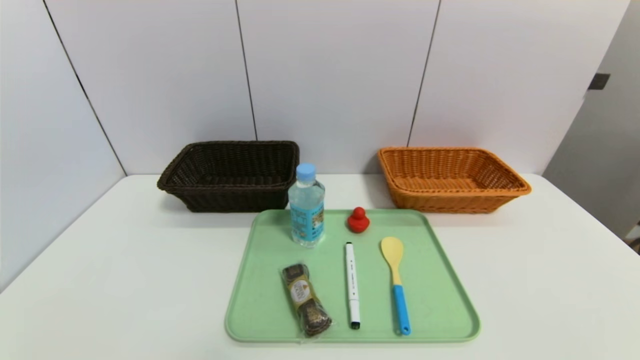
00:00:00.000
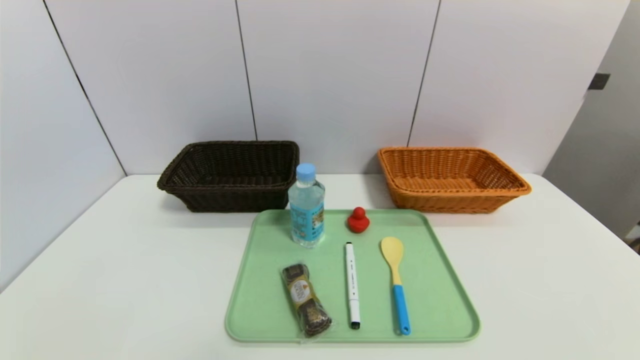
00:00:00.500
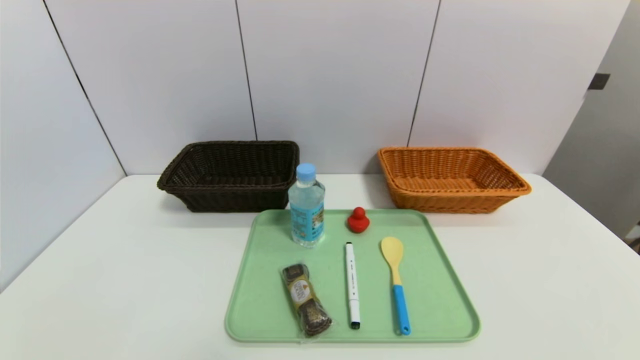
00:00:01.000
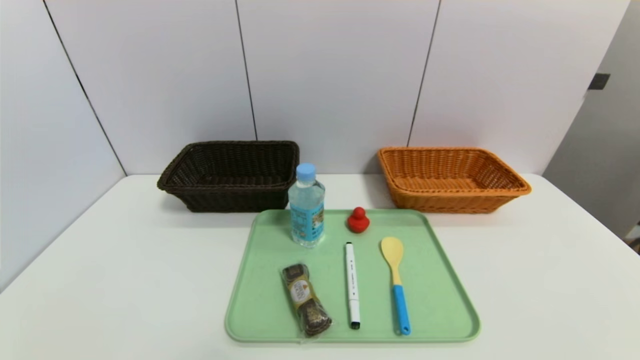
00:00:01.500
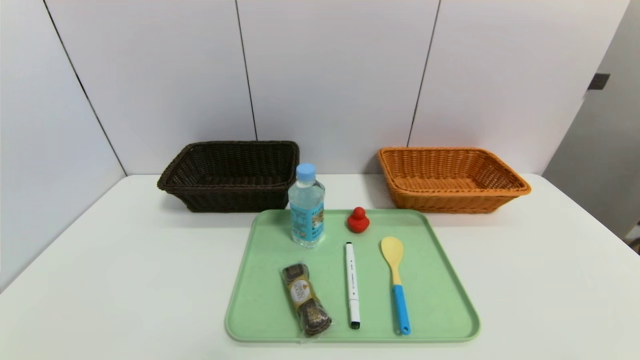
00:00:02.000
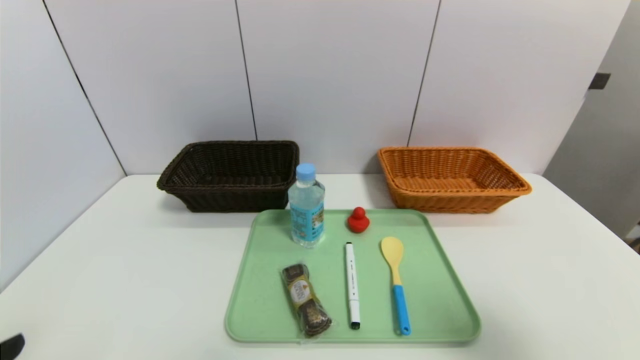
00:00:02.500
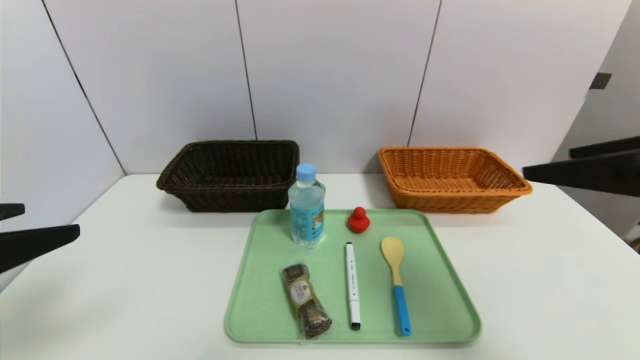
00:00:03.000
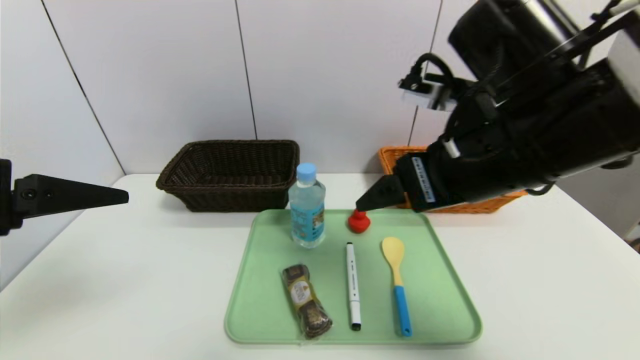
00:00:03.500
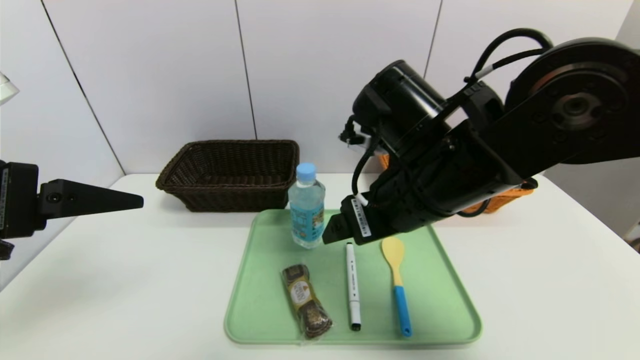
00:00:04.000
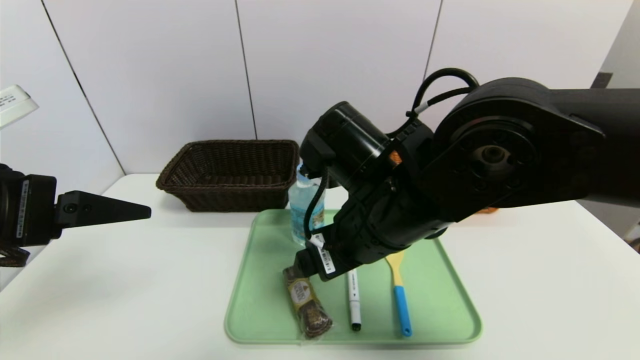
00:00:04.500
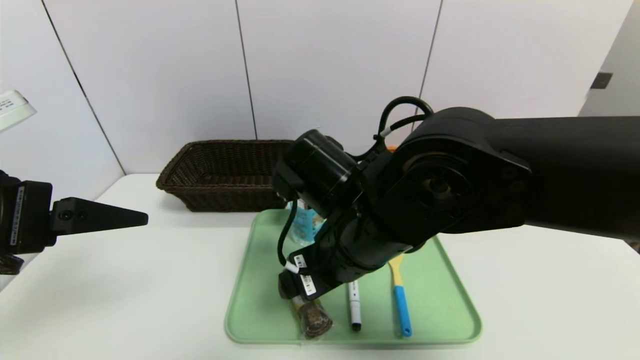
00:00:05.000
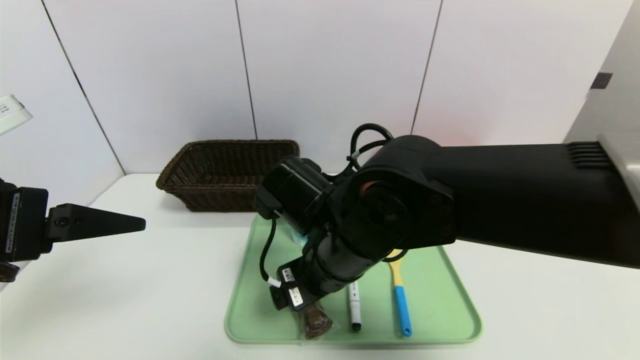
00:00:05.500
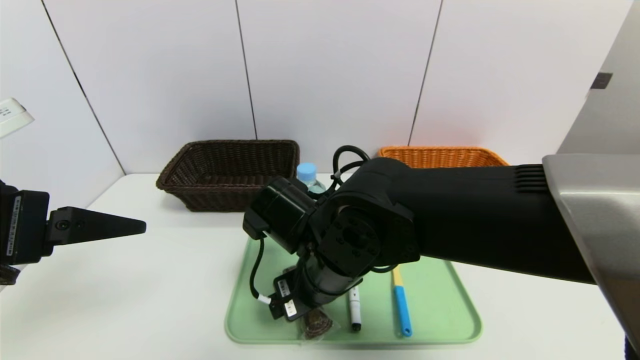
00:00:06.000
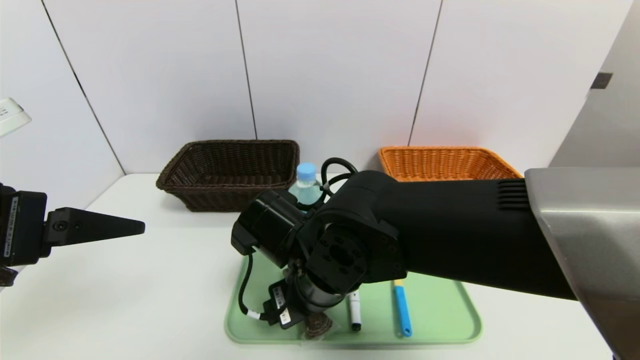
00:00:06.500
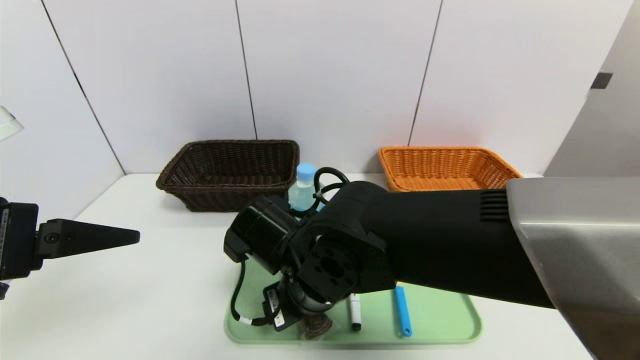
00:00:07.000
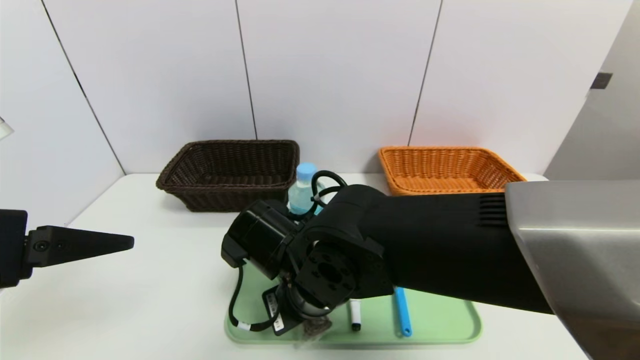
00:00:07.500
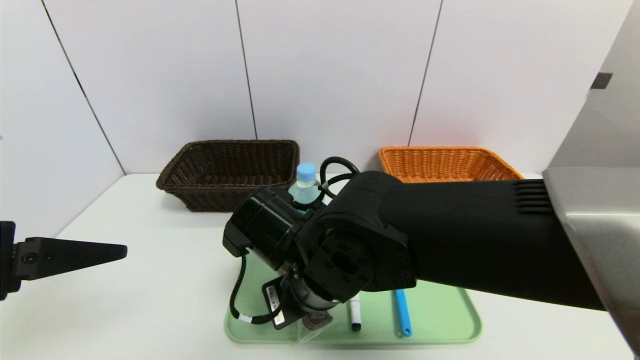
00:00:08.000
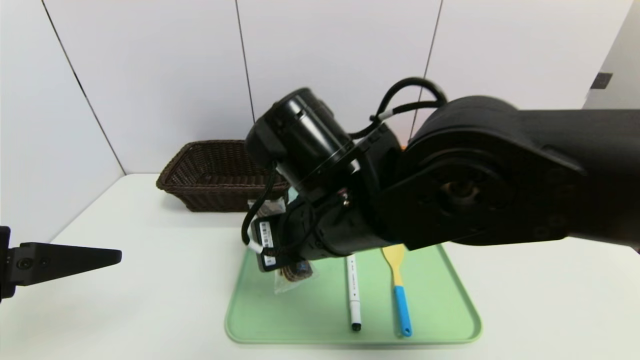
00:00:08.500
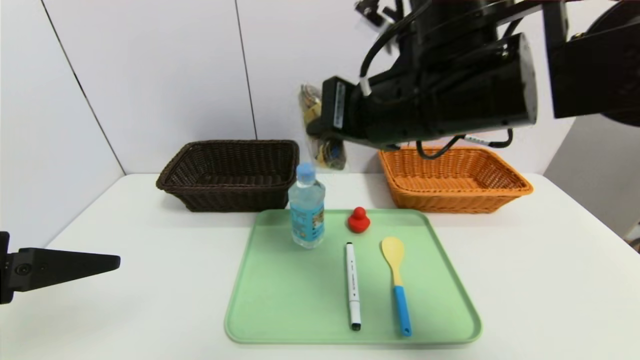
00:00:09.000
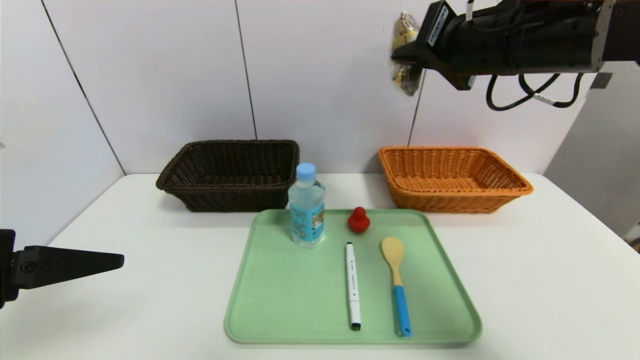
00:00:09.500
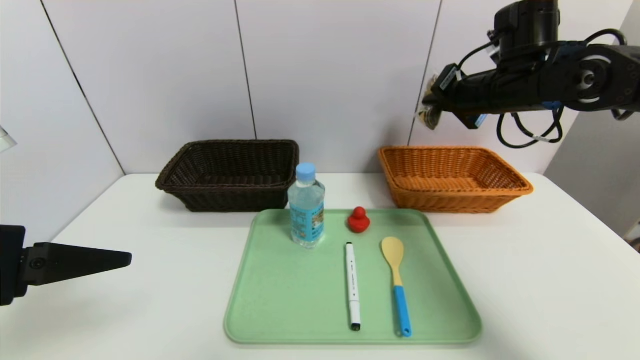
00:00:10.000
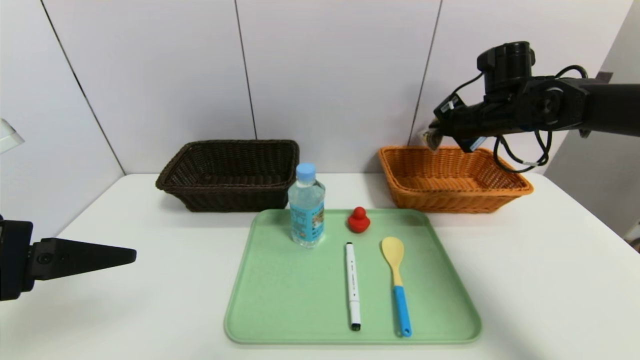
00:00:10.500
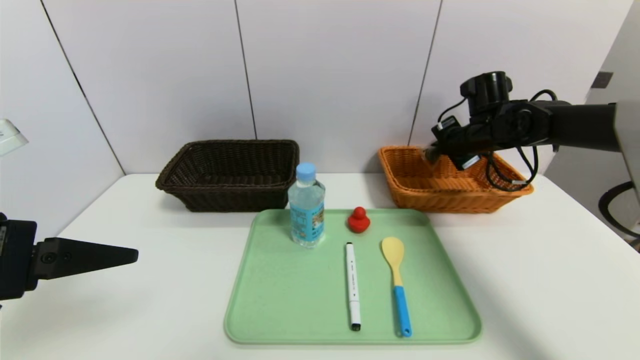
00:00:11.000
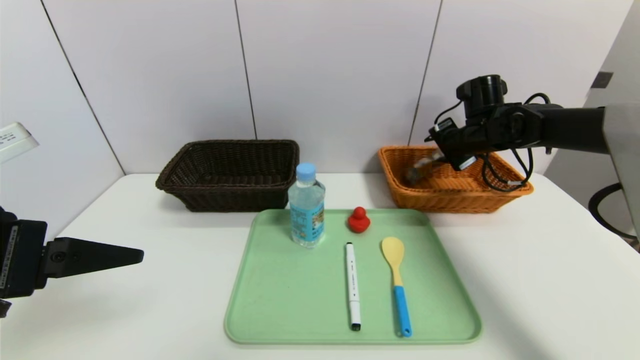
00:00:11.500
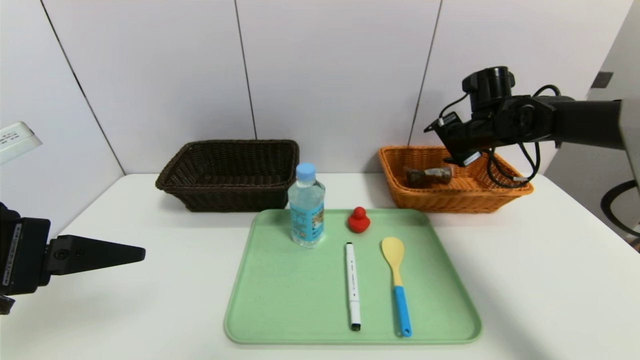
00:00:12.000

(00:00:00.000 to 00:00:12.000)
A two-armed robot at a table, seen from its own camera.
Task of the whole recording: place the food in the right basket with the right gripper, and place the non food items in the left basket with the left gripper.
00:00:02.000 - 00:00:04.000: The right gripper is displaced forward and to the left by some 35 cm. The left gripper heads forward and upward, covering approximately 25 cm.
00:00:04.000 - 00:00:06.000: The right gripper shifts roughly 15 cm to the left and downward.
00:00:06.000 - 00:00:08.000: The right gripper closes its fingers.
00:00:08.000 - 00:00:10.000: The right gripper travels to the right, forward and upward by roughly 35 cm.
00:00:10.000 - 00:00:12.000: The right gripper goes some 10 cm downward and forward, and opens its fingers.

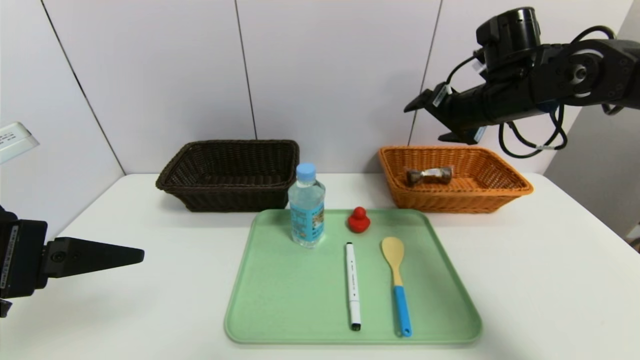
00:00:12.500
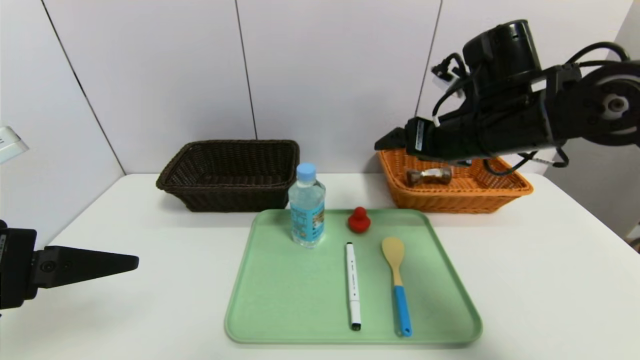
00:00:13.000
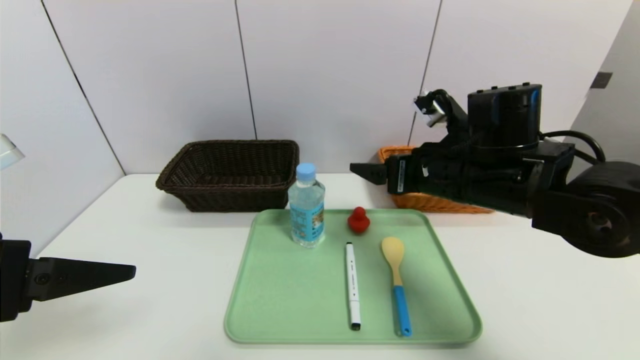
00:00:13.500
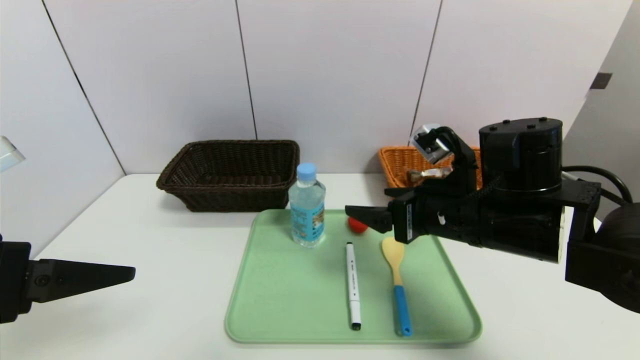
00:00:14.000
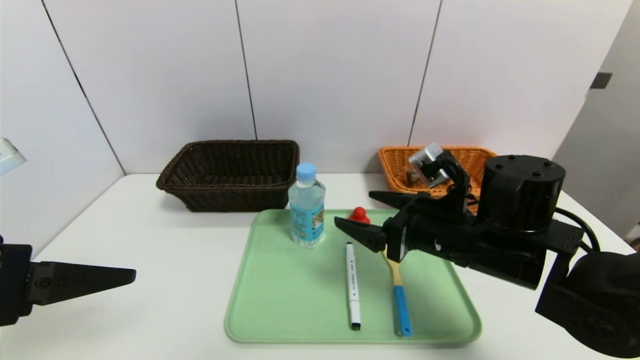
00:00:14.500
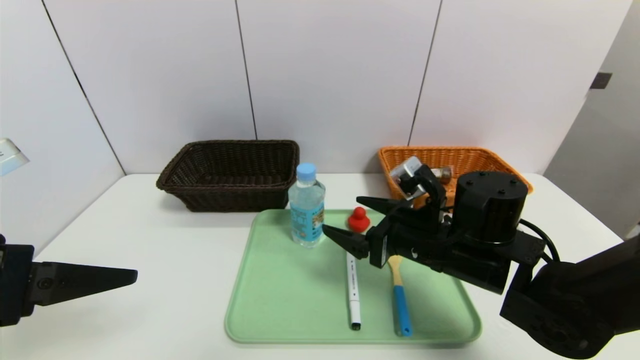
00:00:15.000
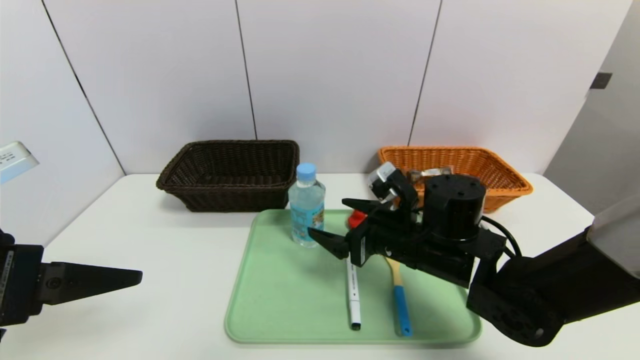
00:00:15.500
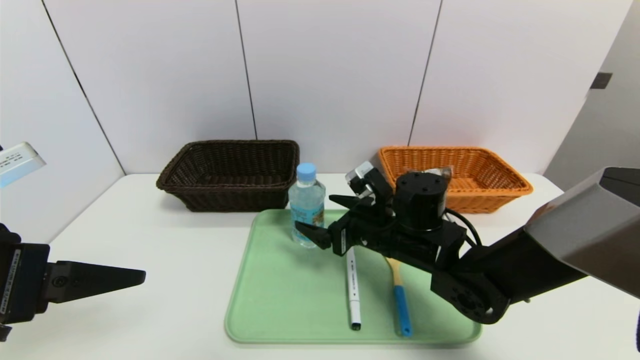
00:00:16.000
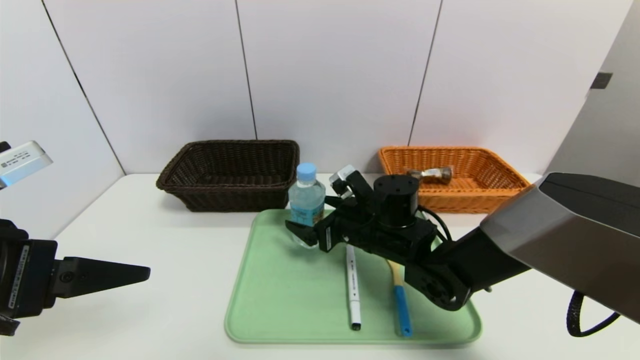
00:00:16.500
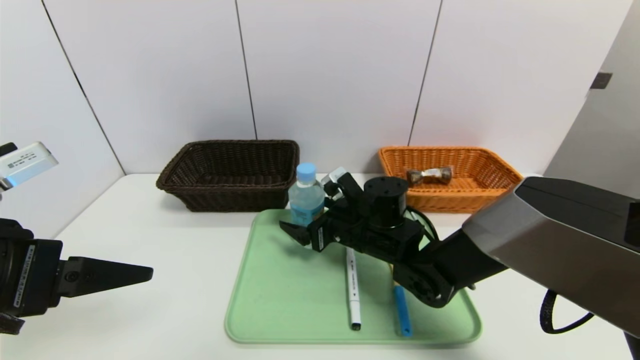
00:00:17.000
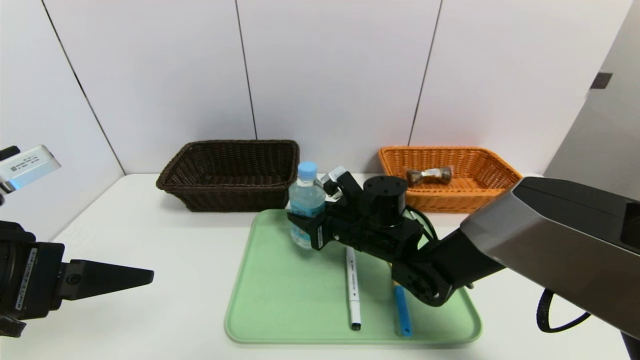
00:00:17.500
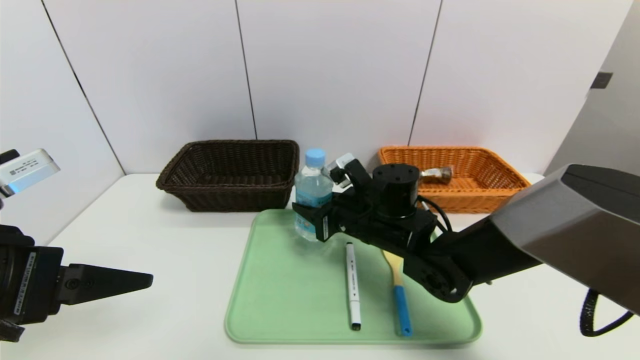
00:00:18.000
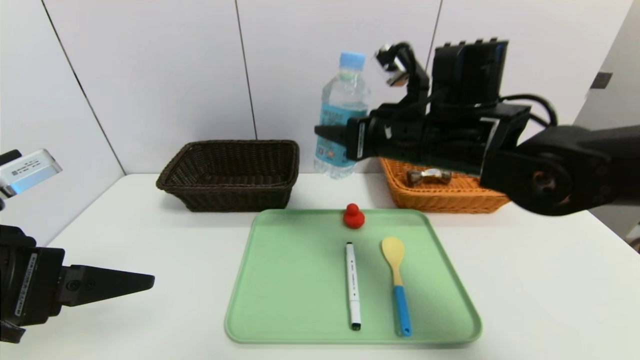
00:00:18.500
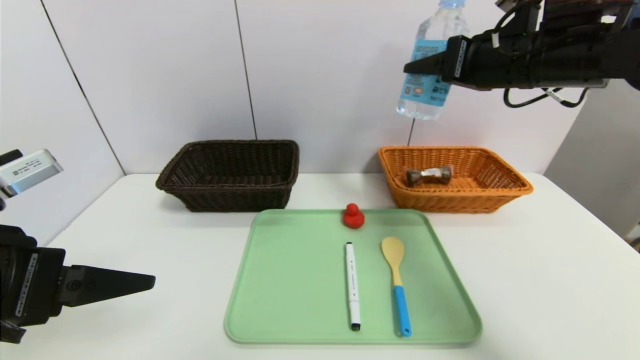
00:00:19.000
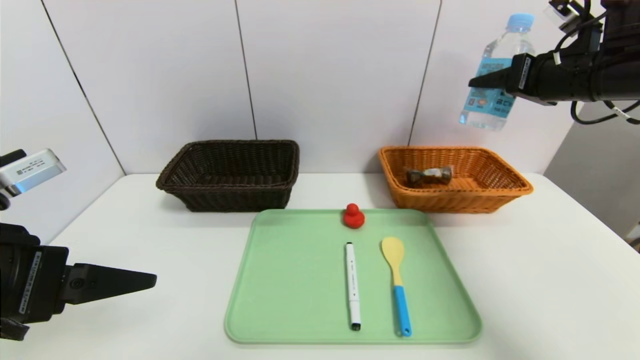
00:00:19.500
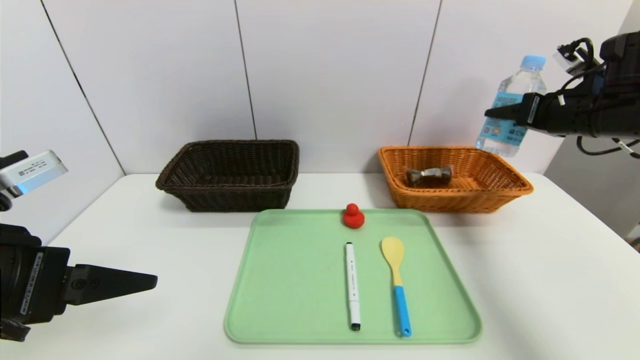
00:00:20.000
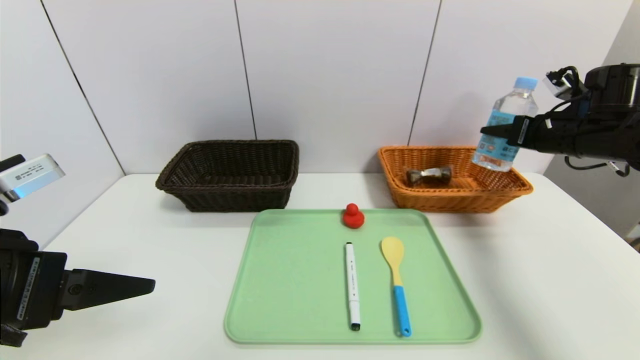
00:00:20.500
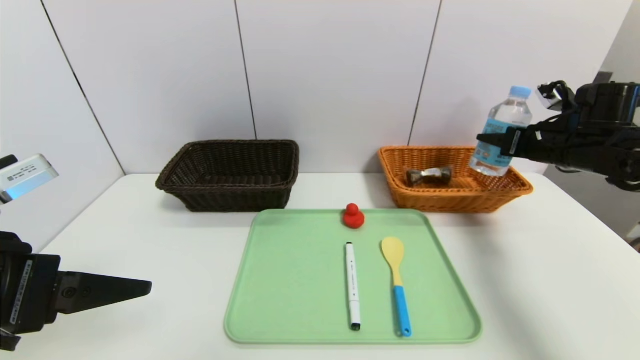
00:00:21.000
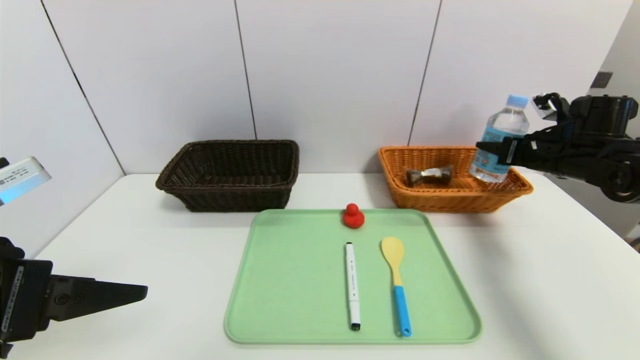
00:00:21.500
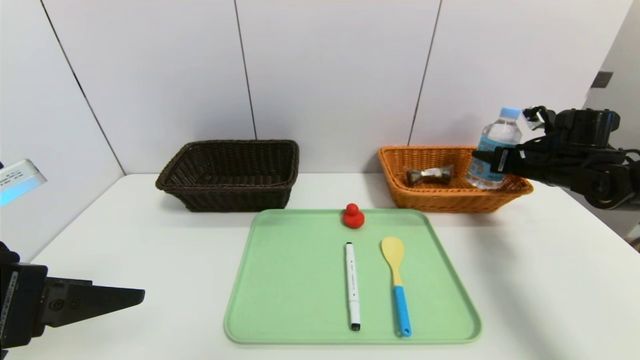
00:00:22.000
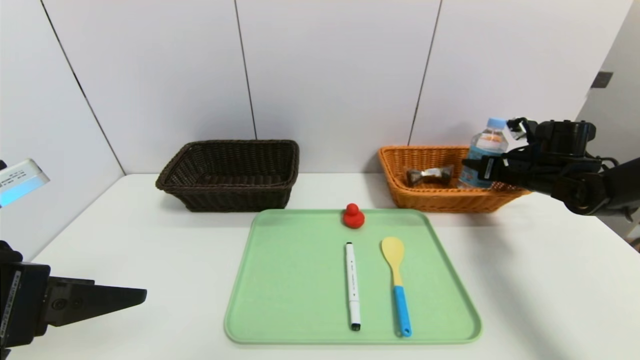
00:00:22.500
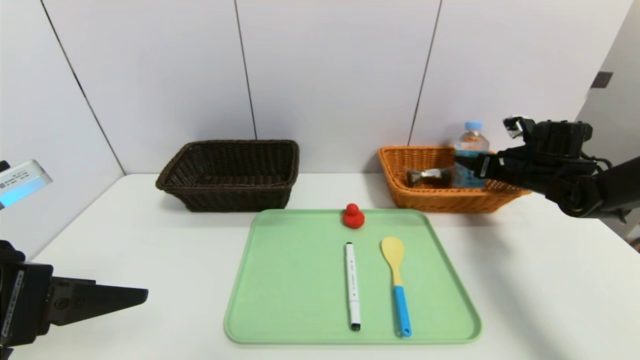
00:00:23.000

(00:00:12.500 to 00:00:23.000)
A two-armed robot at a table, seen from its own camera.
Task of the whole recording: place the food in the right basket with the right gripper, and place the non food items in the left basket with the left gripper.
00:00:12.500 - 00:00:14.500: The right gripper heads downward, backward and to the left, covering some 20 cm.
00:00:14.500 - 00:00:16.500: The right gripper is displaced to the left, forward and downward by roughly 15 cm.
00:00:16.500 - 00:00:19.000: The right gripper goes roughly 30 cm upward and to the right, and closes up.
00:00:19.000 - 00:00:21.000: The right gripper goes about 20 cm to the right and downward.
00:00:21.000 - 00:00:23.000: The right gripper travels downward by some 5 cm.
